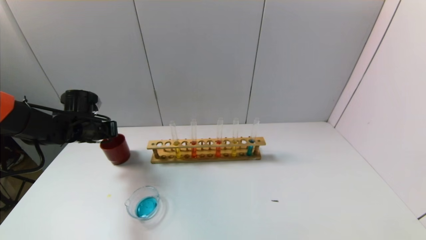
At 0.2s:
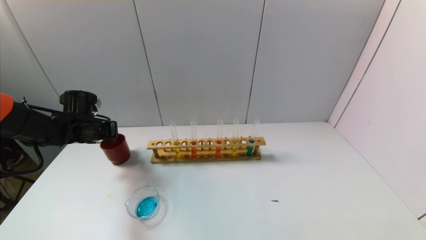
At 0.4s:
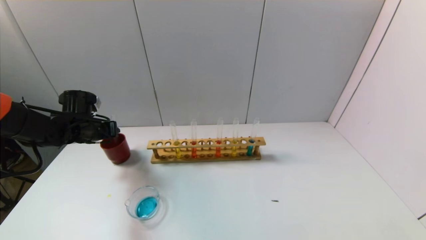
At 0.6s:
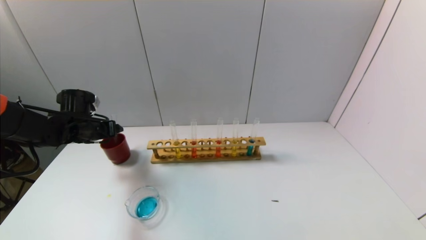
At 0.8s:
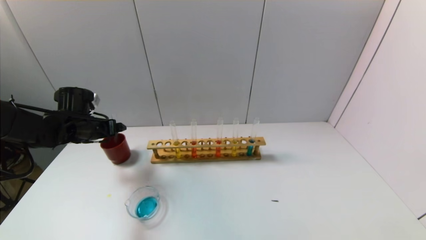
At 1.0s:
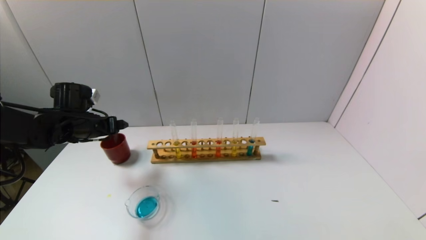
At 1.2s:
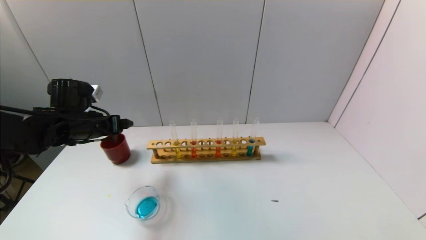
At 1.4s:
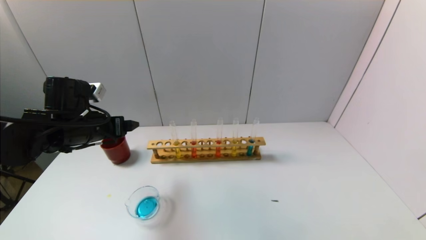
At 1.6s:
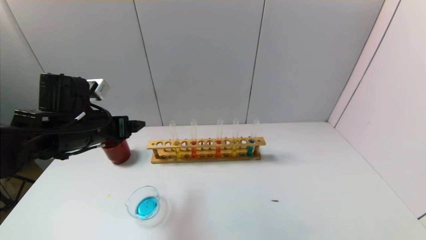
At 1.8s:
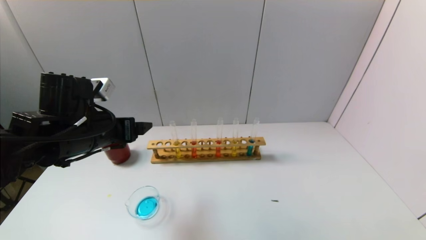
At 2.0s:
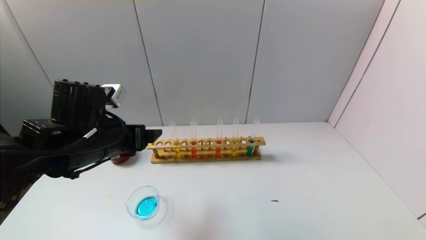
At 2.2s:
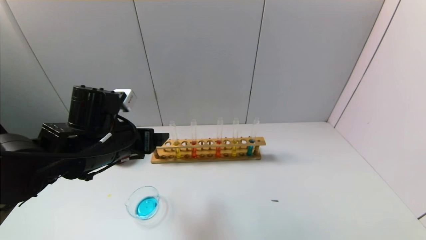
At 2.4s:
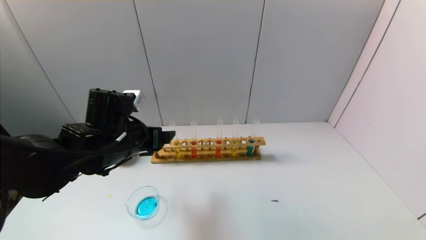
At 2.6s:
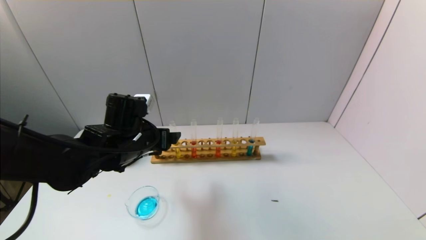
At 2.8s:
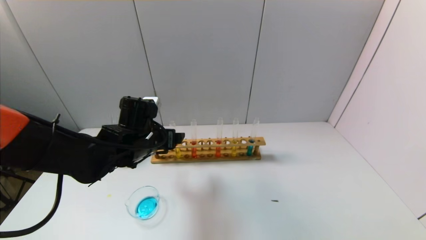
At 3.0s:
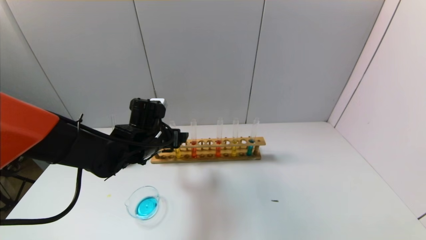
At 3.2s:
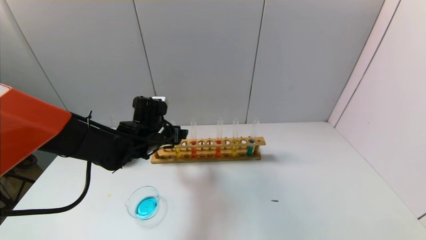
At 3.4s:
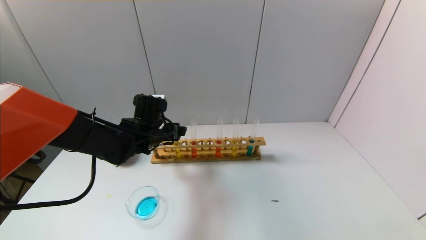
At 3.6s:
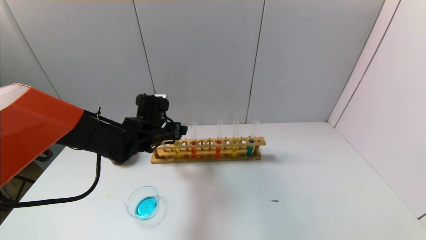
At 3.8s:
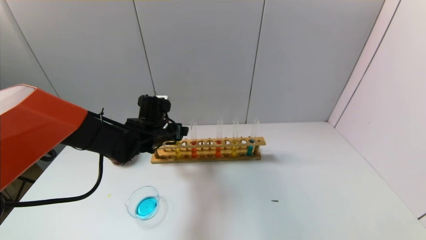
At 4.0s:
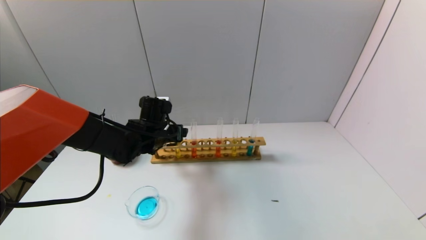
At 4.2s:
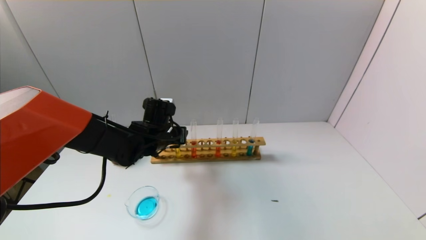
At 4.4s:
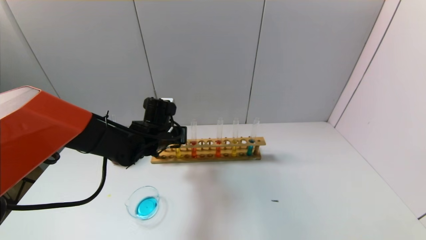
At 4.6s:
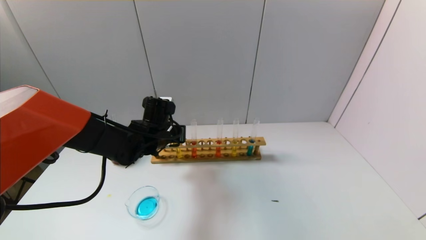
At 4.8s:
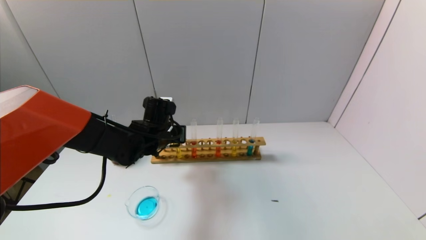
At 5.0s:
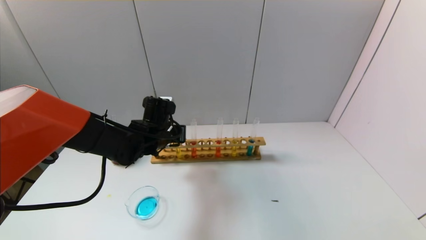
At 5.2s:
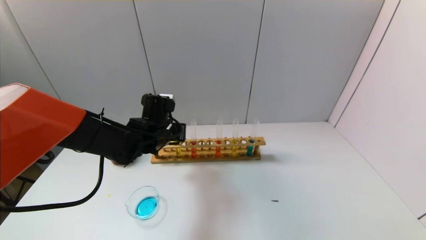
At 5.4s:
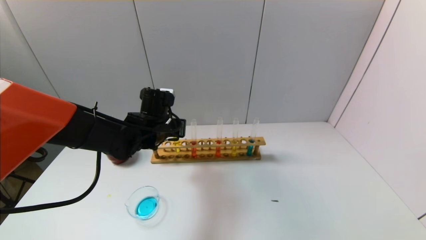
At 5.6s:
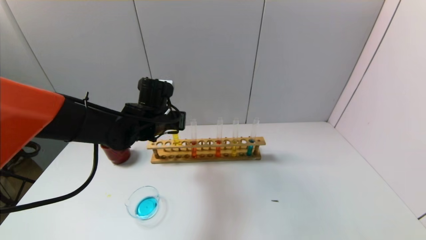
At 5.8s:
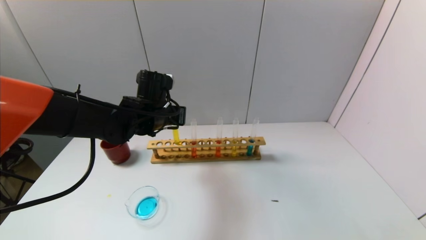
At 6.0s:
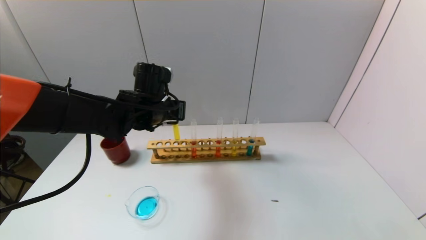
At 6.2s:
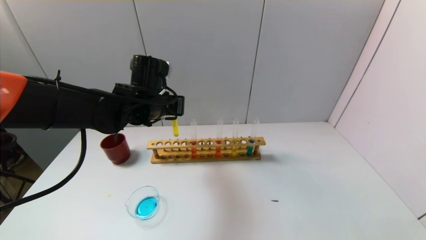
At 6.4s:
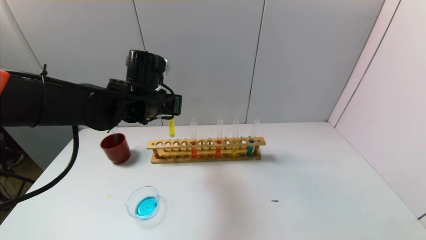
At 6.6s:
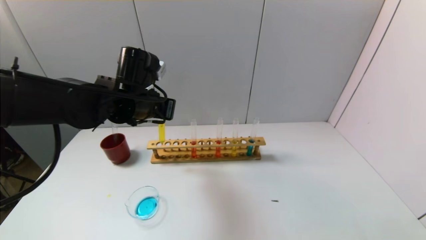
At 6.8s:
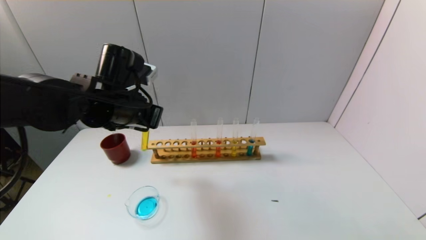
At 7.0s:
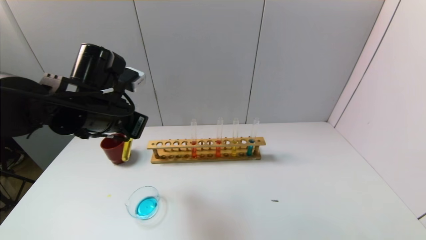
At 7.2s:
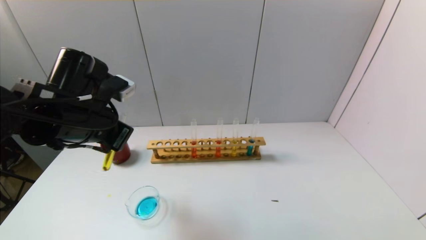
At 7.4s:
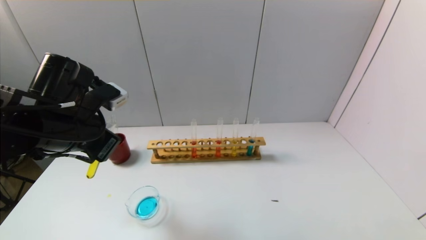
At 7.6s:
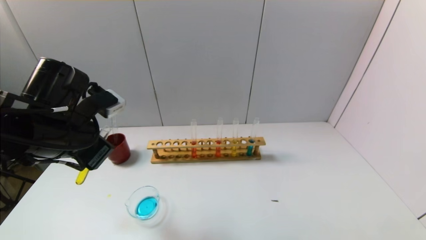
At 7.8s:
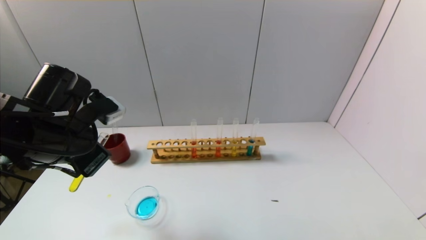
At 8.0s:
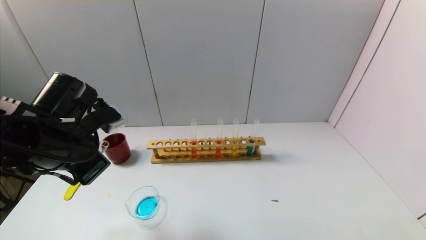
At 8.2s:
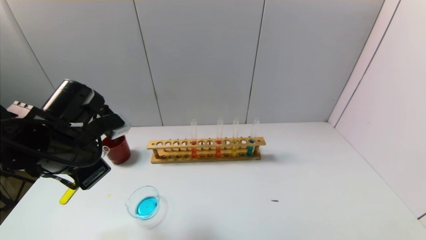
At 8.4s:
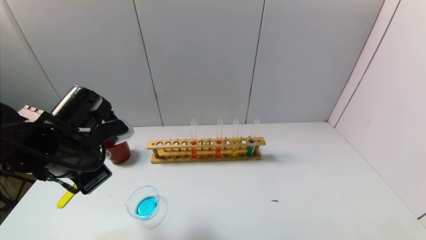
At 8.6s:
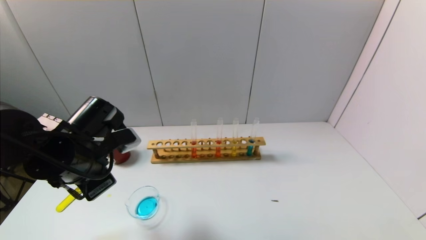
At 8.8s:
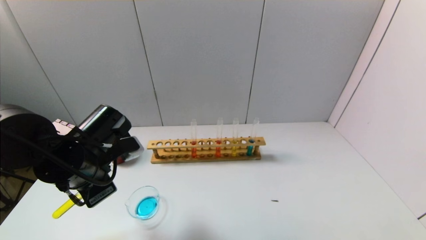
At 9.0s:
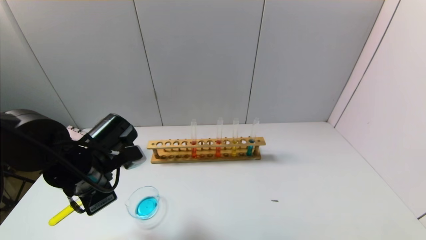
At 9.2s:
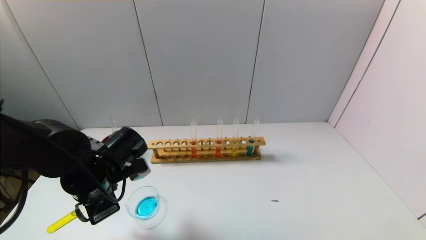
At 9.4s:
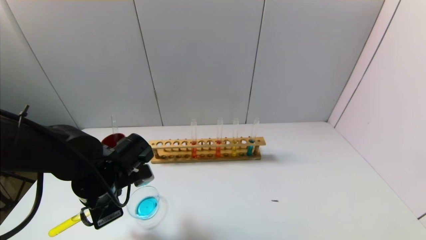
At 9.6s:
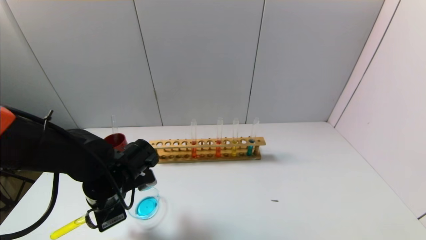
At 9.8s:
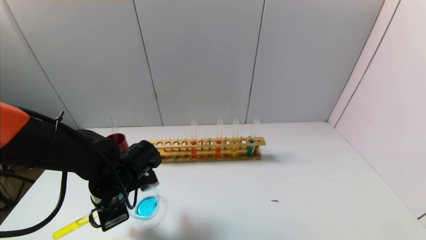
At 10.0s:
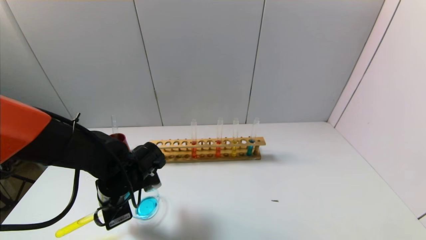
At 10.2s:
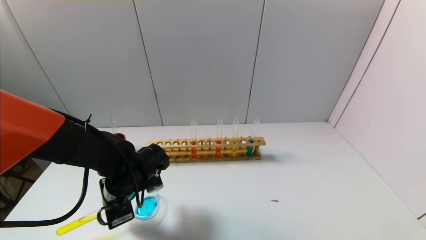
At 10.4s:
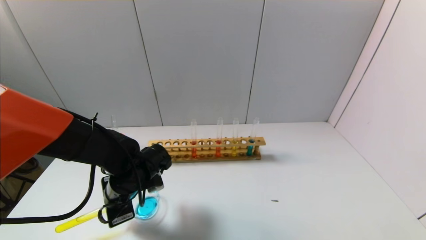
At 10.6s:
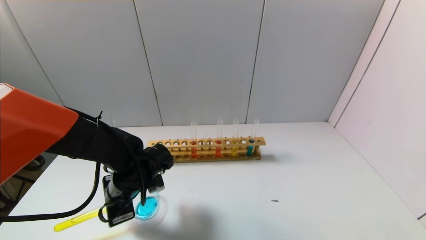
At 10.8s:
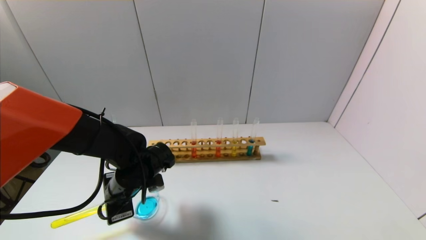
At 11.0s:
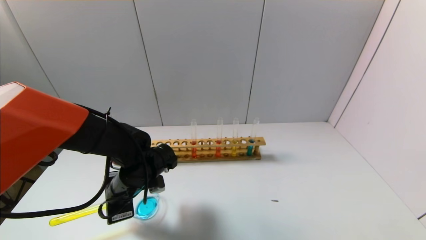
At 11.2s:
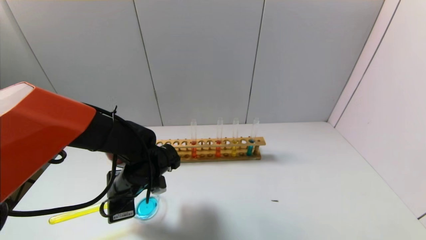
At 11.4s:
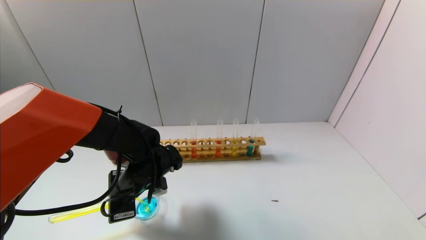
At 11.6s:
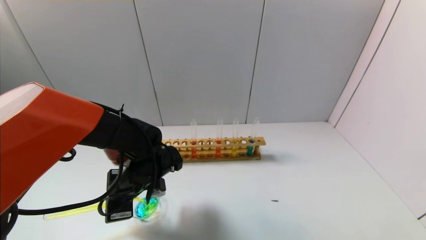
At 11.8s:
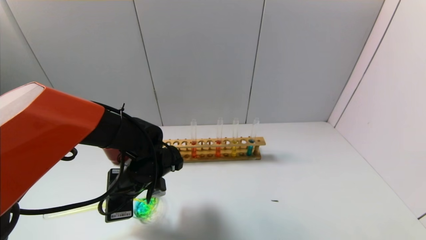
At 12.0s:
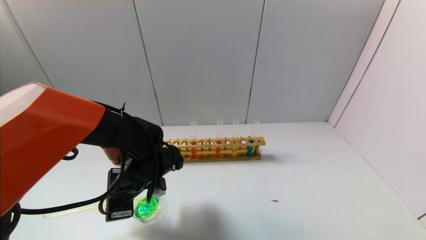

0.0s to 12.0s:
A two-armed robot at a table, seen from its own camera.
Task of the whole recording: pick up the test tube with yellow pigment and the test tube with blue pigment by grippers and pour them into the beaker.
Step, 0.6s to 4.4s: Grasp the yellow reagent with the left gripper.
0.0s to 1.6s: The left gripper goes approximately 15 cm backward, to the right and upward, and opens its fingers.
1.6s to 3.0s: The left gripper goes approximately 15 cm to the right, downward and forward.
3.0s to 4.4s: The left gripper closes its fingers.
4.4s to 6.0s: The left gripper heads upward, covering approximately 10 cm.
6.0s to 7.6s: The left gripper heads backward and to the left, covering roughly 15 cm.
7.6s to 9.0s: The left gripper travels downward by about 10 cm.
9.0s to 10.4s: The left gripper moves downward, approximately 5 cm.
10.4s to 12.0s: There are only small adjustments of the grippers.

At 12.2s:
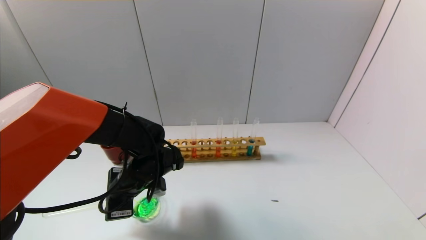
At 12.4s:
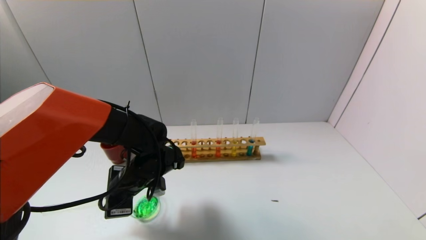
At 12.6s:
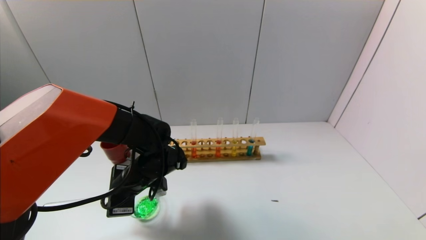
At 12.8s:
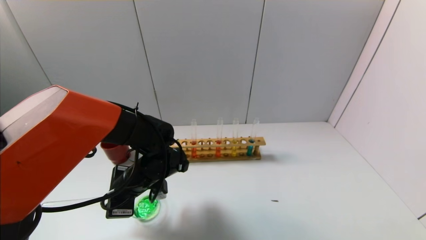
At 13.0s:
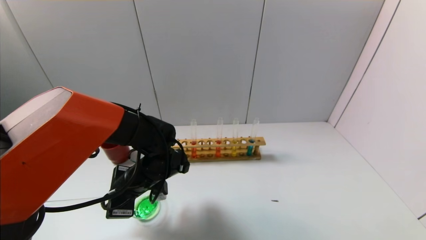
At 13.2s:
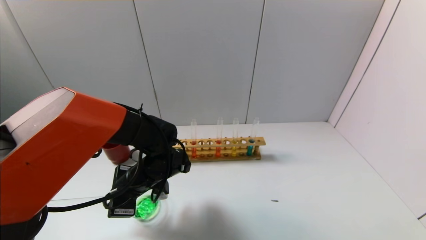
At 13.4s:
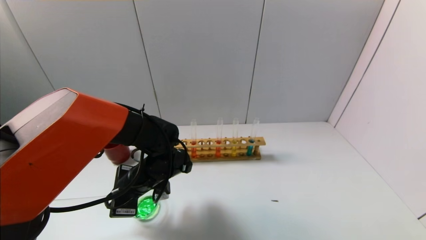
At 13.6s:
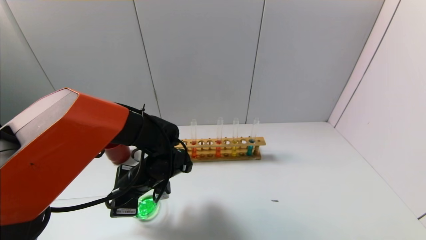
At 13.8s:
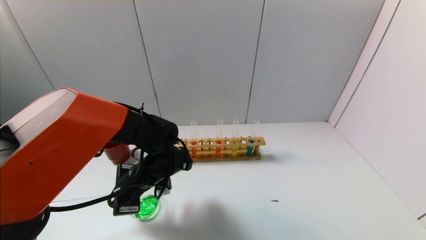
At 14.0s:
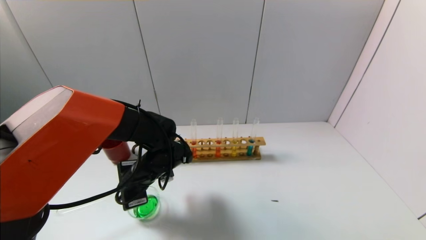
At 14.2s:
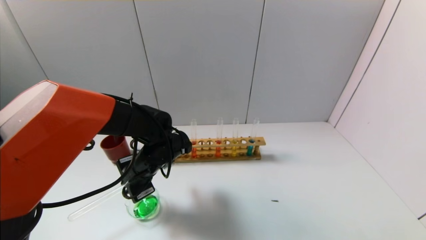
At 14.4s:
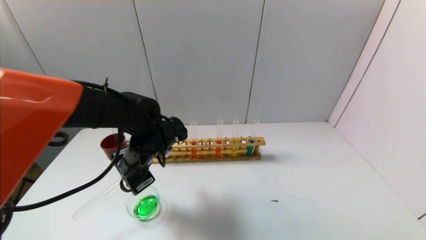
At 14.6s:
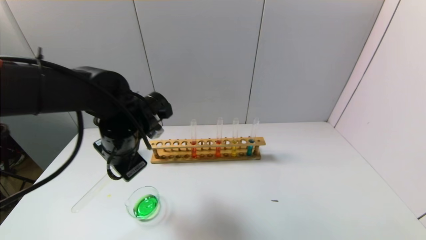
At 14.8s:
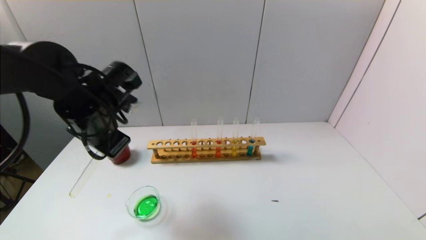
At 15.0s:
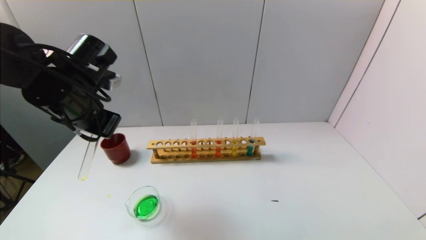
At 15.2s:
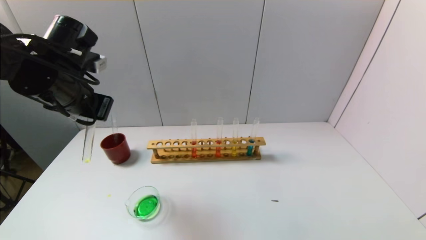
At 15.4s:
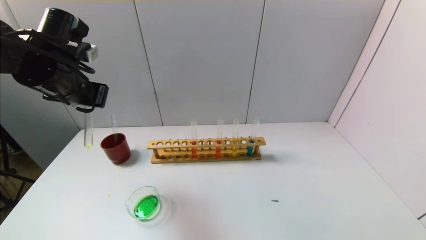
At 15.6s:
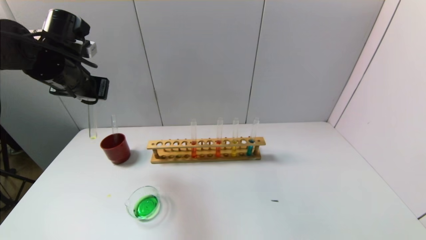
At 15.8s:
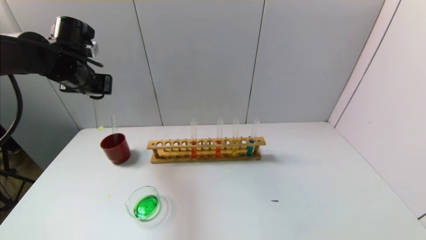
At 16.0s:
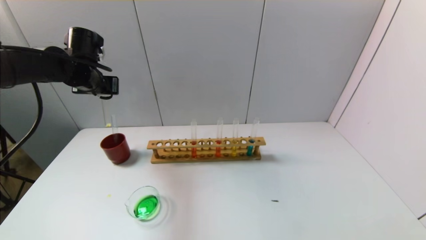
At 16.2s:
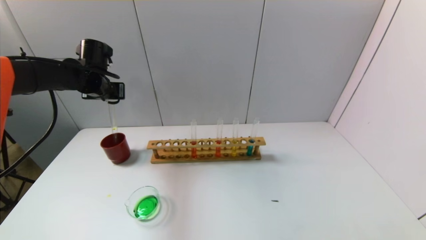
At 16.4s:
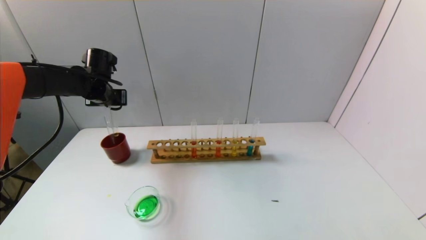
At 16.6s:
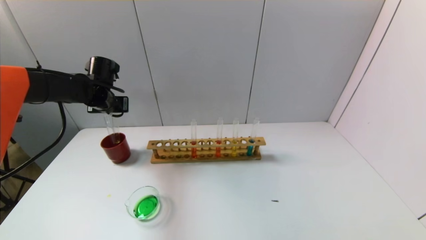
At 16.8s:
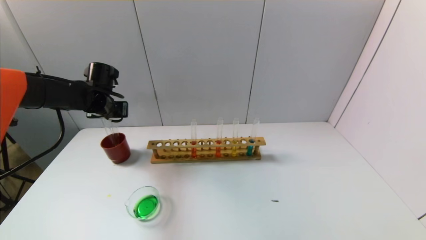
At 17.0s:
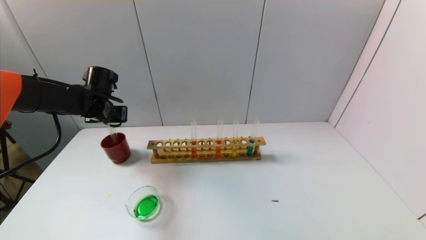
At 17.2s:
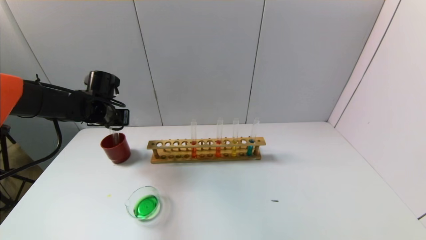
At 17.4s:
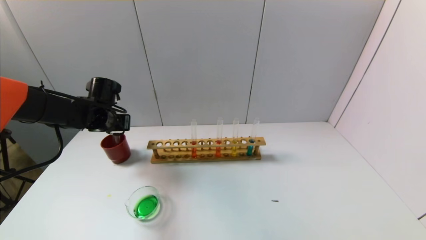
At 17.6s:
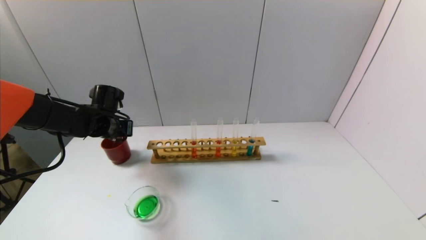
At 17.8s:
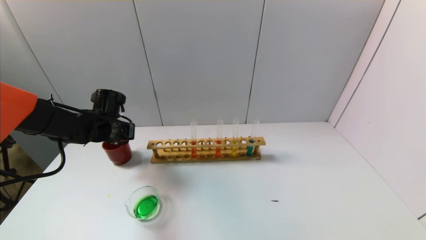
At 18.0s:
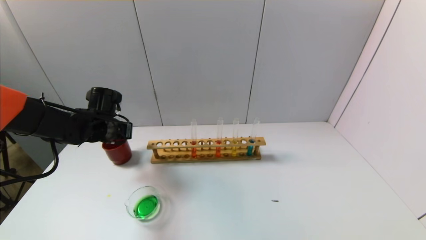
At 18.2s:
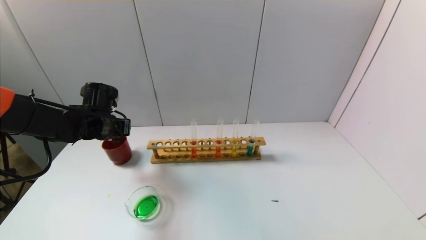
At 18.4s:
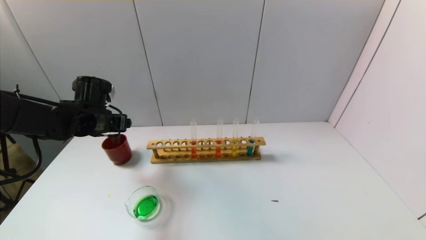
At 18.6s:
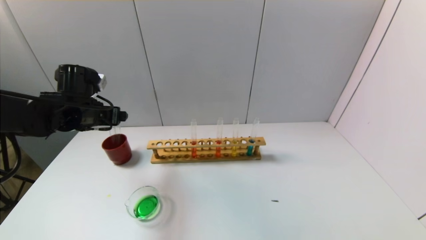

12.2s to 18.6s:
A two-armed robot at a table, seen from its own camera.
Task of the whole recording: pick up the test tube with yellow pigment and the test tube with blue pigment by grippers and pour them into the beaker.
Step, 12.2s to 14.4s: Pour the yellow reagent into the graduated cylinder with the left gripper.
Step, 14.6s to 18.4s: Place the test tube into the brown cup with the left gripper.
12.2s to 13.8s: There are only small adjustments of the grippers.
13.8s to 15.4s: The left gripper shifts about 25 cm upward and to the left.
15.4s to 17.0s: The left gripper moves downward and forward, about 15 cm.
17.0s to 18.6s: The left gripper travels backward by approximately 5 cm, and opens up.
